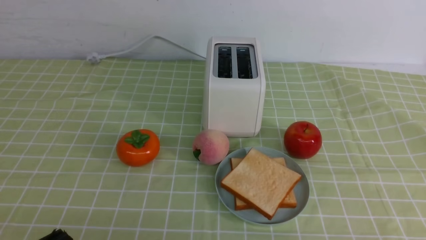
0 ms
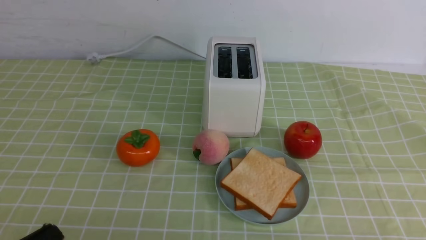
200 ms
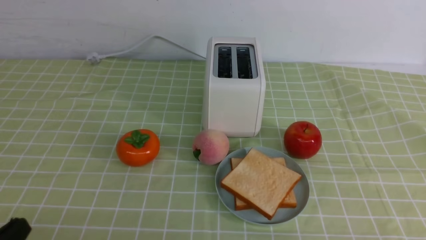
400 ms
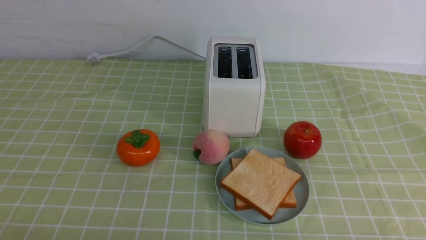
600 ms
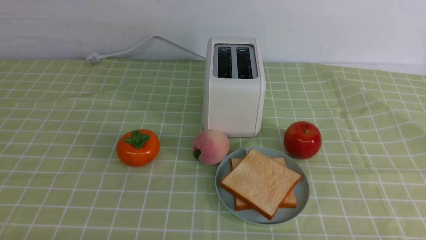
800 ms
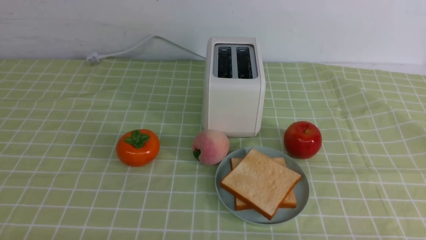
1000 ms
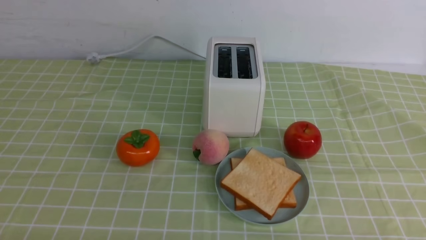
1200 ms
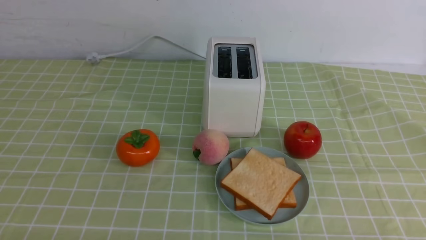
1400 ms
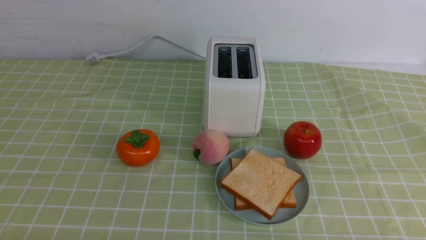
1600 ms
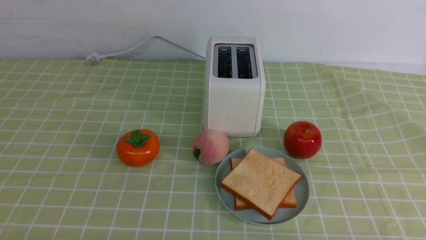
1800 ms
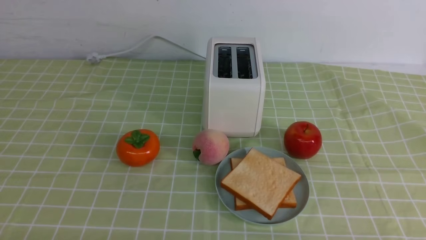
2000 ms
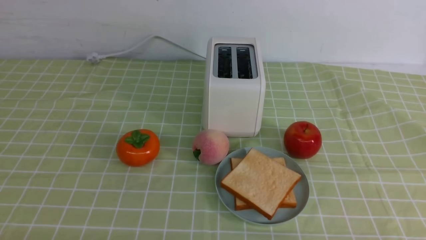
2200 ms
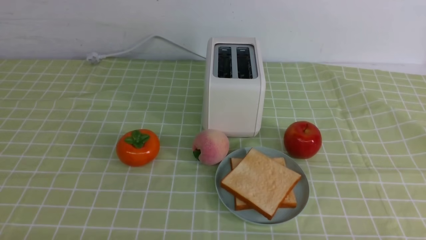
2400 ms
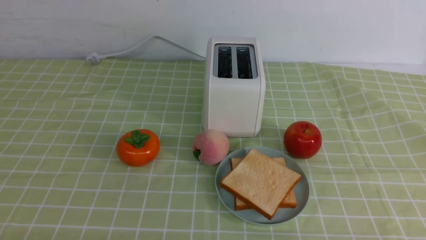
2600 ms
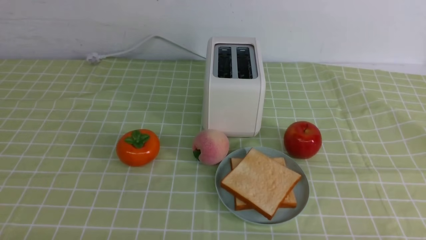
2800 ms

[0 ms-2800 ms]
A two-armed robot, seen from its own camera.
Task of the whole recording: take toasted bread from bread machine on green coffee tablecloth place on plate.
1400 ms to 2800 ms: Both grippers stay about where they are.

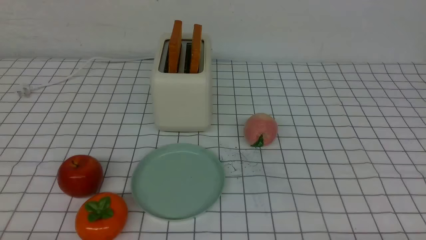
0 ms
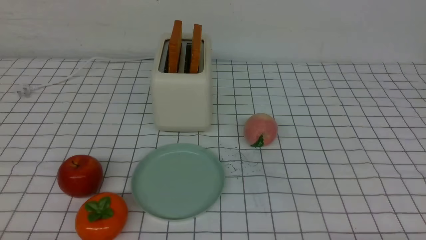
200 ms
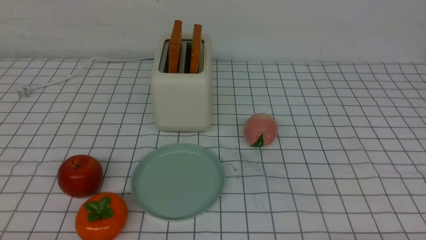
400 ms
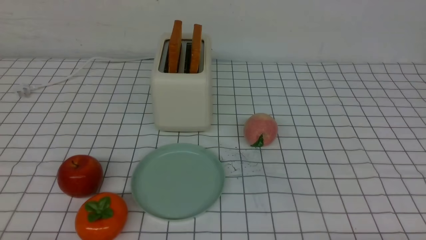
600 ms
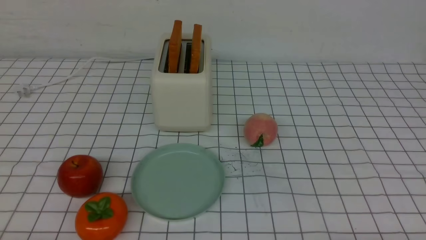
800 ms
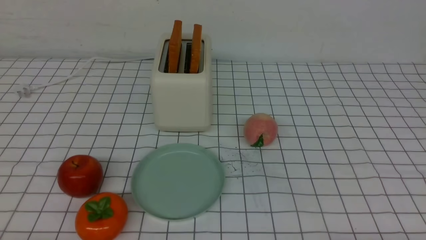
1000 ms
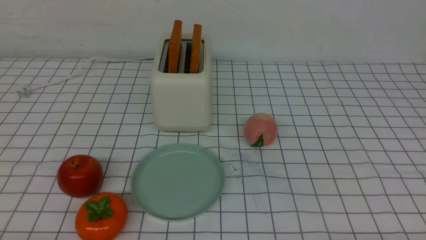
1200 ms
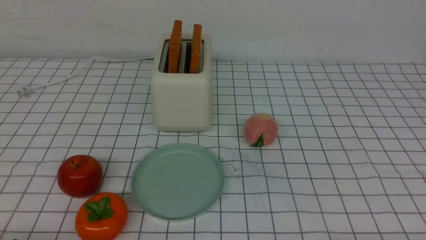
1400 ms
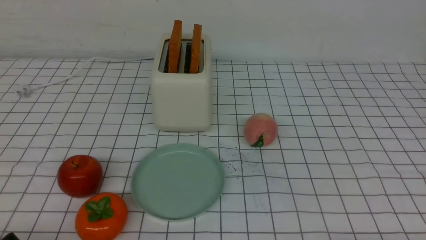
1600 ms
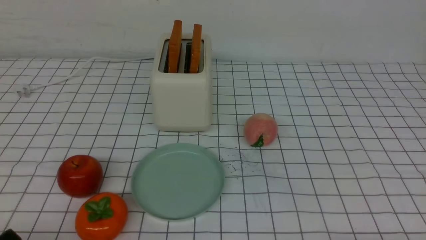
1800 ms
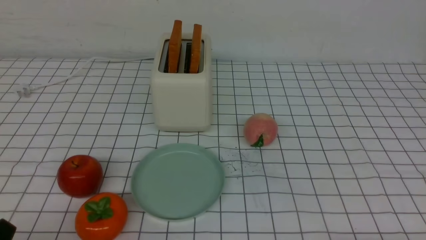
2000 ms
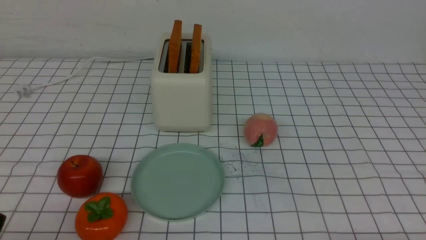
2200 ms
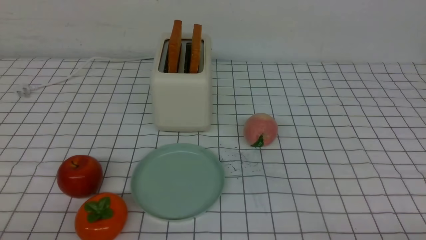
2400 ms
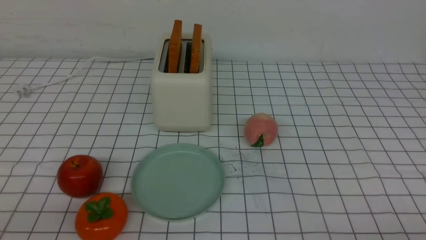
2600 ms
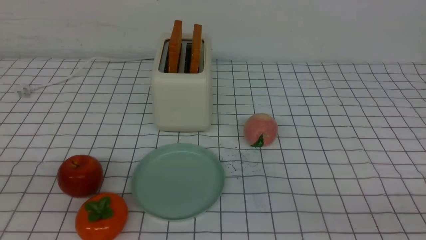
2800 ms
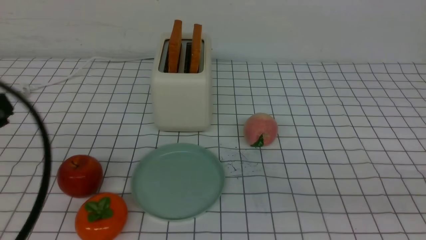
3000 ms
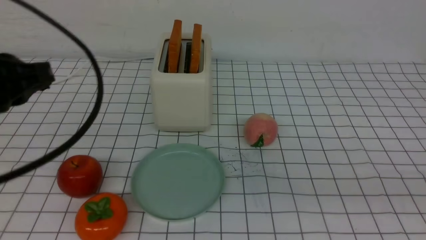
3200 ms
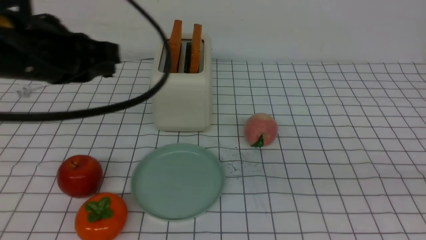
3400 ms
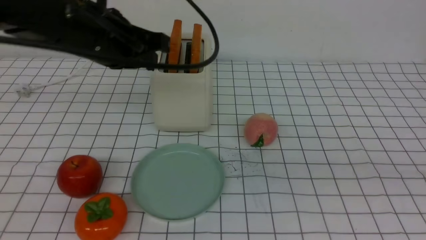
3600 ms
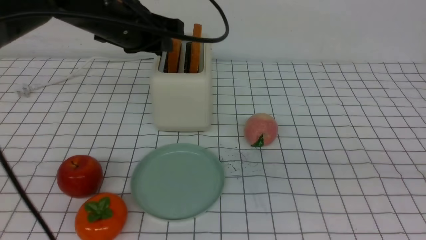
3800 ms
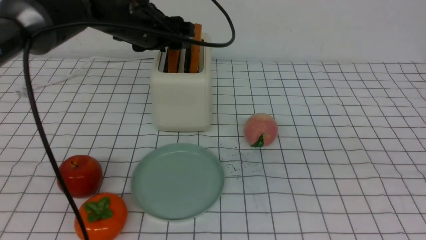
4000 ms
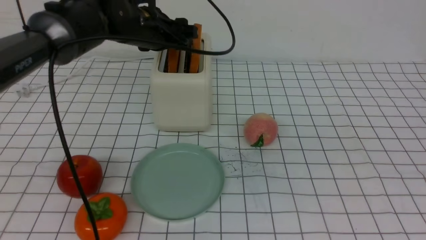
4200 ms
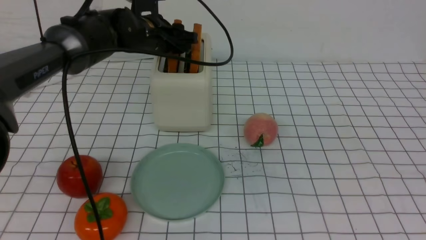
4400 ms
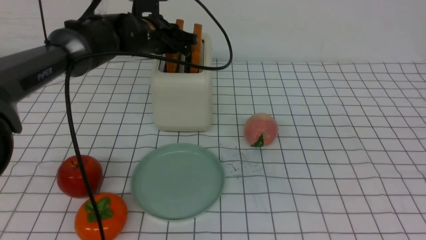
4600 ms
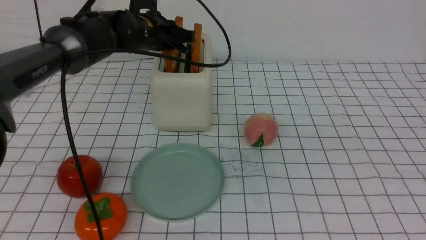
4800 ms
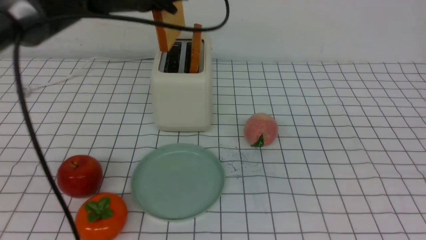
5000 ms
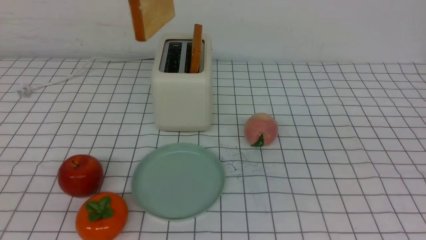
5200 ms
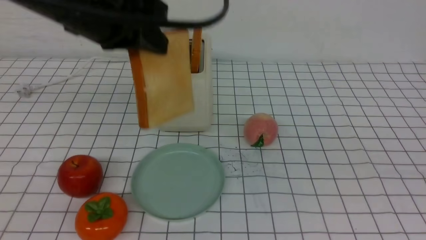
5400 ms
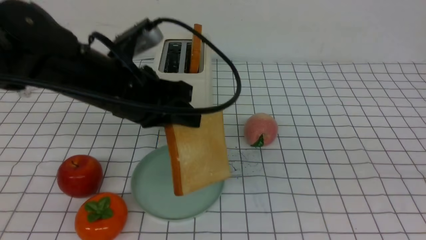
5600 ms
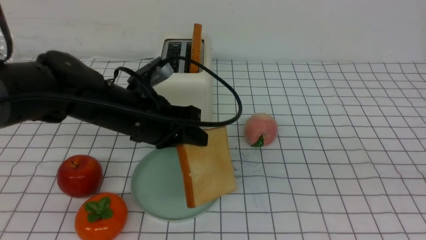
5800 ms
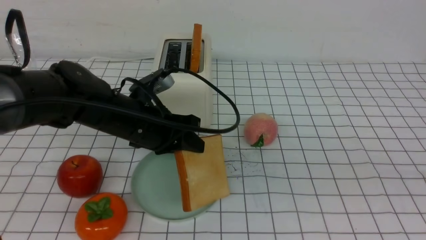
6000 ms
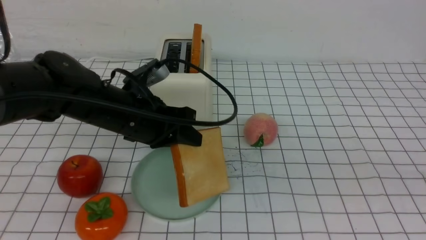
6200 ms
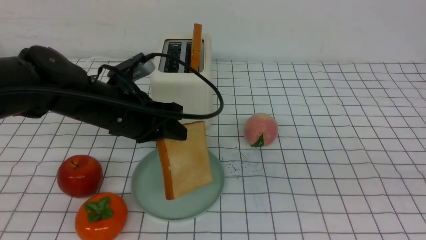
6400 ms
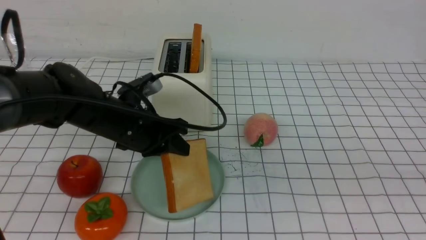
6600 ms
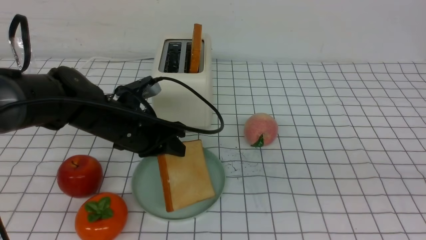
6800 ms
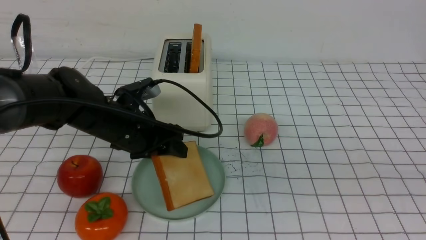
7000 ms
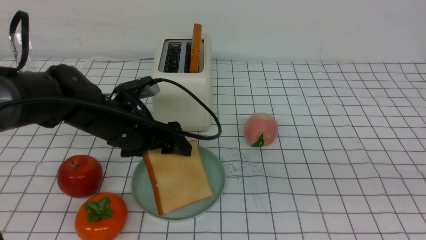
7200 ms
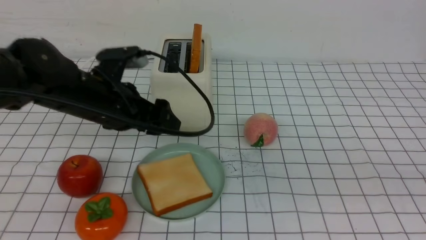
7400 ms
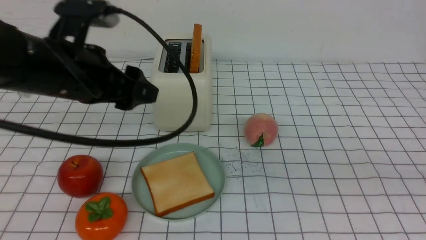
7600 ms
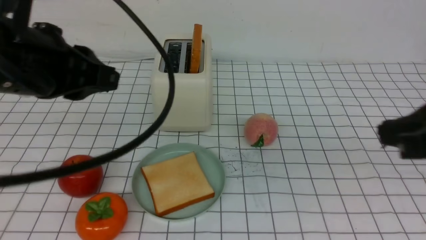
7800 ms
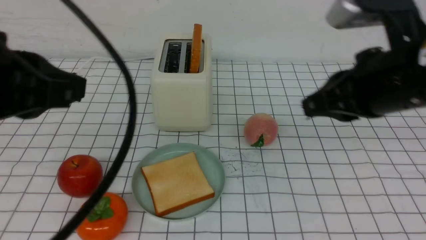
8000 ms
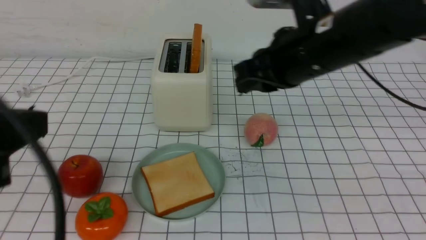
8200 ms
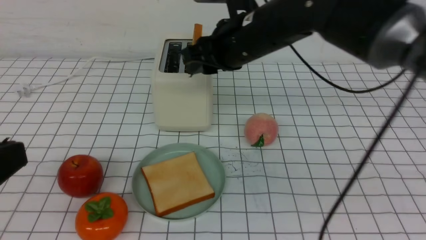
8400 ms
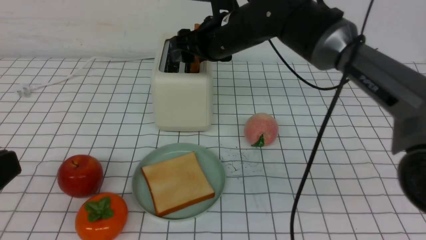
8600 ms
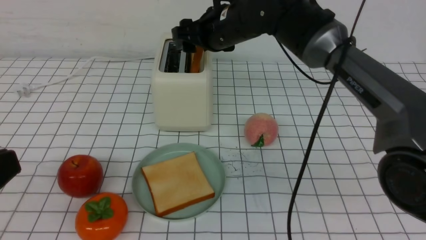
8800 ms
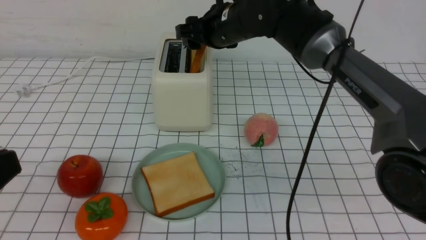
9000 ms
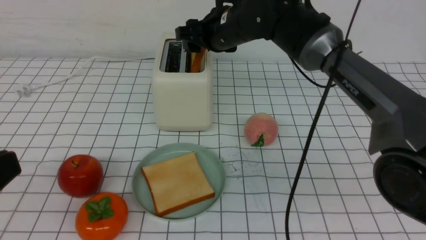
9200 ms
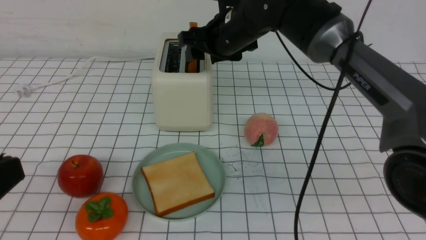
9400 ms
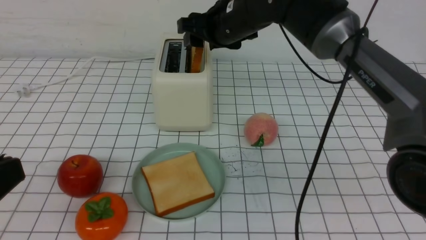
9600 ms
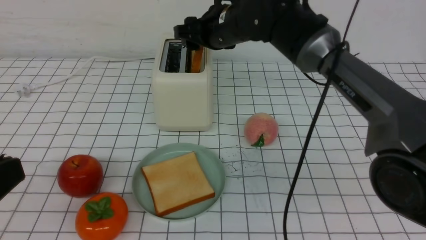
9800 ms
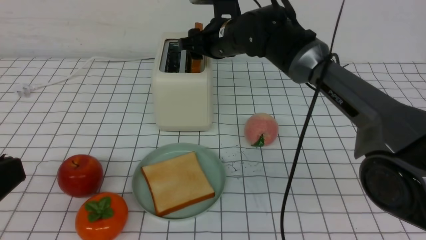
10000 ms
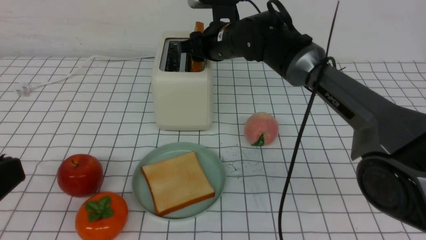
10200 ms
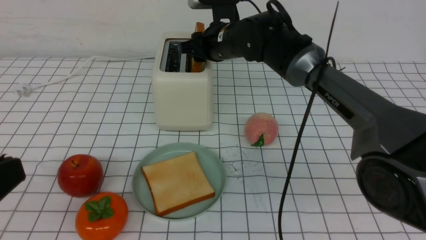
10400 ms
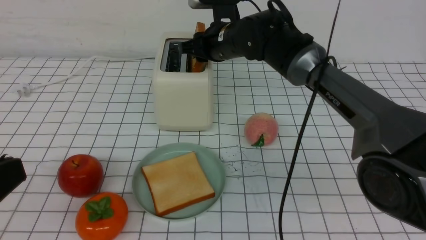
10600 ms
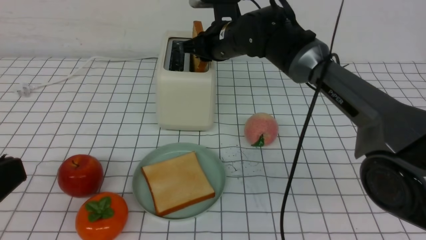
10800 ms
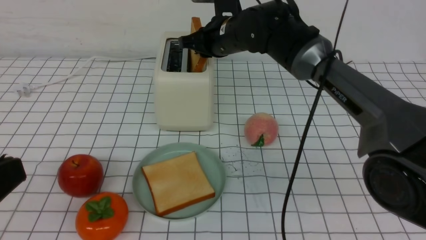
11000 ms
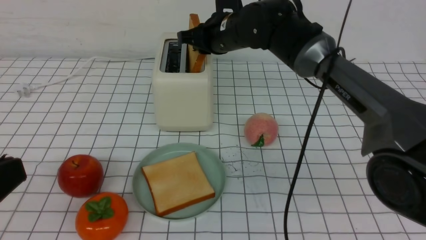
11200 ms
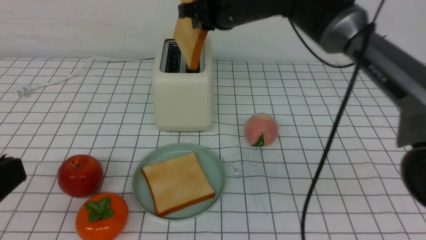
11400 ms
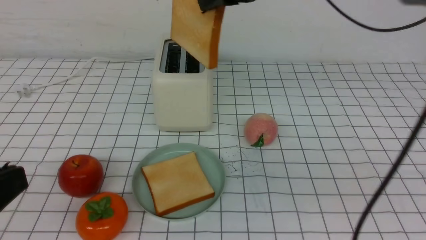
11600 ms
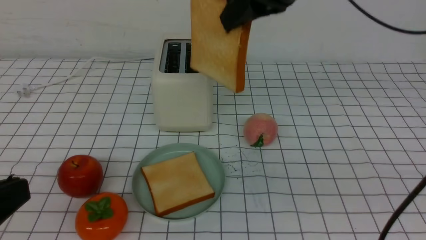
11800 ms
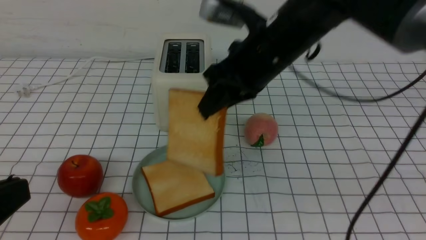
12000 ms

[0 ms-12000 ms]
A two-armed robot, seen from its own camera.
Task of the whole recording: take toasted bread from bread machine on white checkered table place on plate.
Step, 0 ms to 4800 ms: use the left arm to take out a slice of bread.
Step, 5000 ms to 7600 ms: use the left arm to put a slice of bread into the empty plate.
Step, 7800 ms to 11600 ms: use the right arm to take out a slice of bread.
1600 ms to 3000 ms: The left gripper travels upward and forward by roughly 20 cm, and closes.
3000 ms to 4400 ms: The right gripper is displaced upward by approximately 10 cm. The left gripper moves forward, roughly 35 cm, and opens.
4400 ms to 6000 ms: The left gripper heads backward, covering roughly 15 cm, goes upward and returns, approximately 10 cm each way, and closes.
6000 ms to 7600 ms: The left gripper goes some 15 cm upward, to the left and backward, and opens up.
7600 ms to 9000 ms: The left gripper moves backward, some 20 cm, and closes. Meanwhile the right gripper shifts about 40 cm forward and to the left, and opens up.
9000 ms to 10400 ms: There are only small adjustments of the grippers.
10400 ms to 12000 ms: The right gripper shifts about 15 cm backward and upward, and closes up.

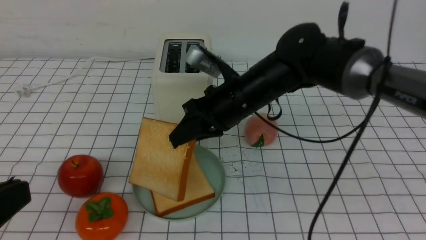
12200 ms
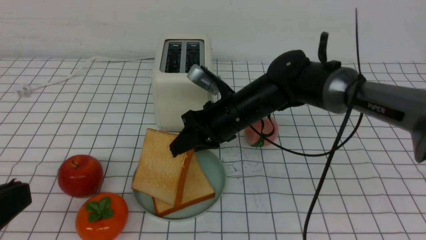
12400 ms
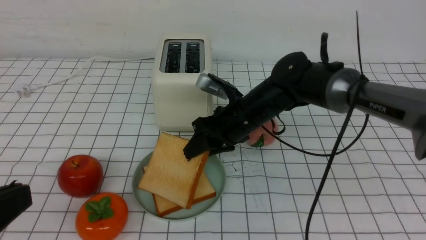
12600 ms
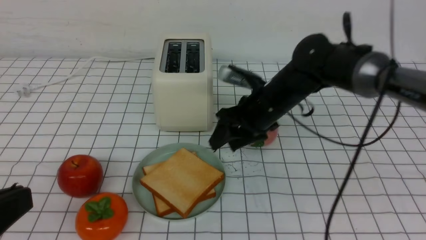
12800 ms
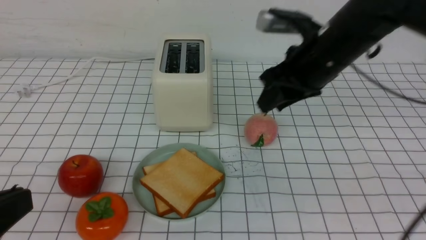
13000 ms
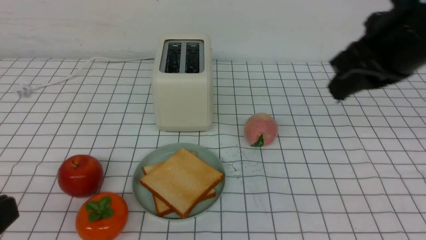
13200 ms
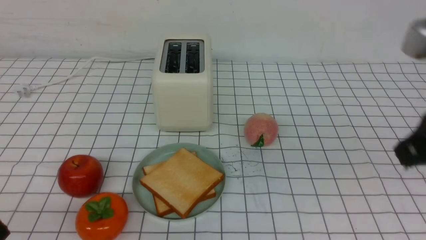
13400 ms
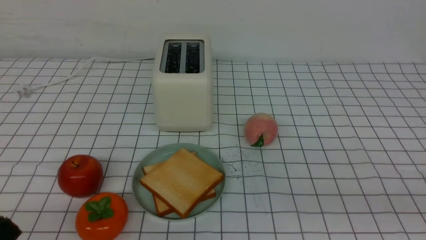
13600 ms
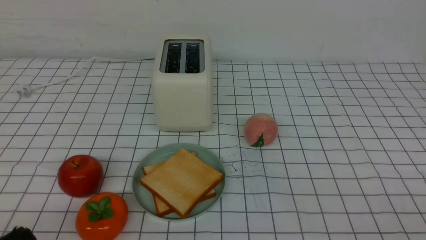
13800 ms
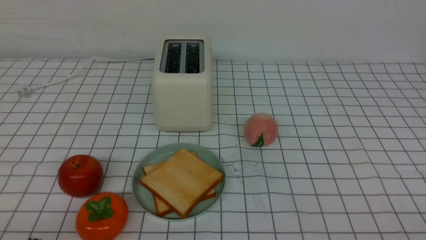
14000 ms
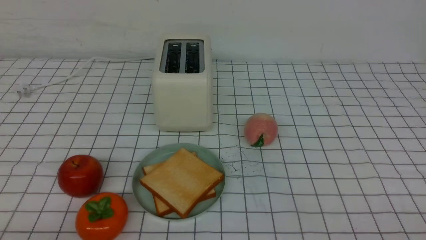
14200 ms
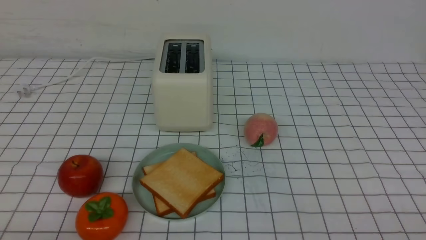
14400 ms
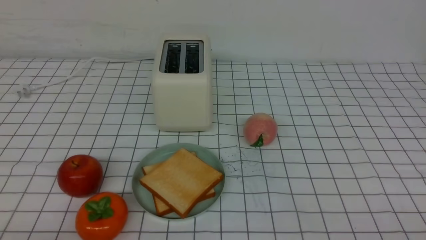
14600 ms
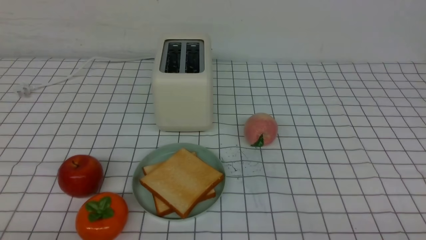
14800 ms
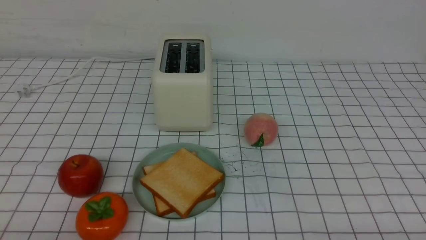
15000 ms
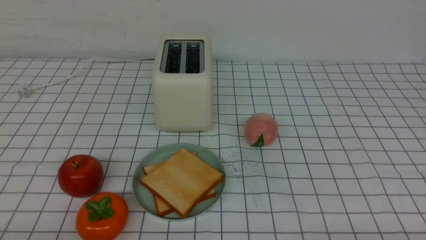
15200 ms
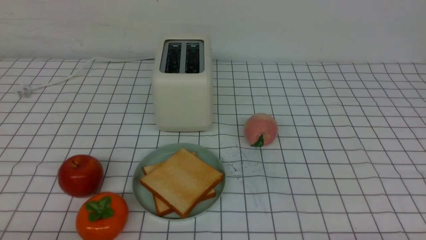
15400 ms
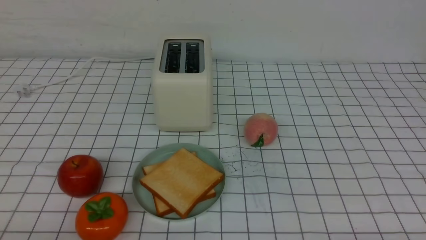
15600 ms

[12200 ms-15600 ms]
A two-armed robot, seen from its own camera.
Task of the whole recording: take toasted bread from bread machine on white checkered table place on plate.
Step, 12200 ms to 12800 ms: use the right arm to put a slice of bread into the plate.
12200 ms to 13800 ms: The left gripper travels downward by roughly 10 cm, while the right gripper moves backward and to the right, roughly 40 cm, and opens, then closes once more.
